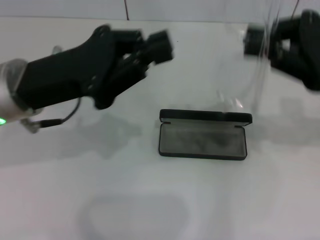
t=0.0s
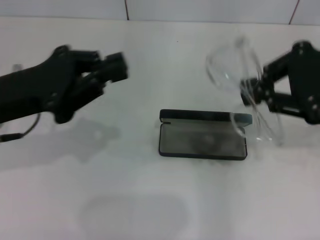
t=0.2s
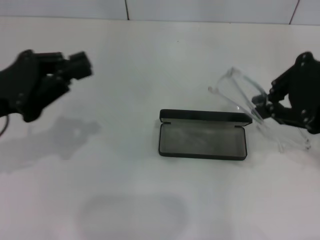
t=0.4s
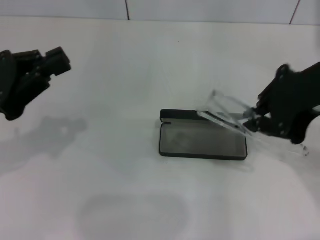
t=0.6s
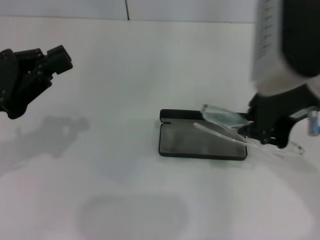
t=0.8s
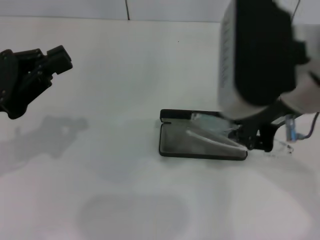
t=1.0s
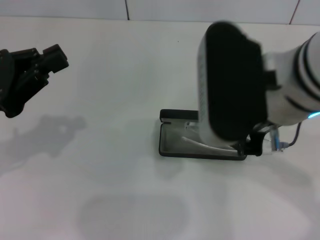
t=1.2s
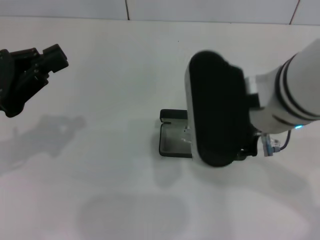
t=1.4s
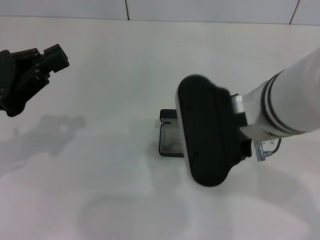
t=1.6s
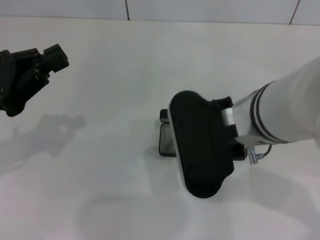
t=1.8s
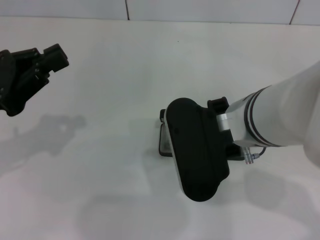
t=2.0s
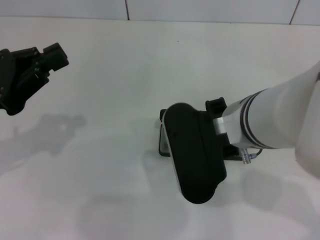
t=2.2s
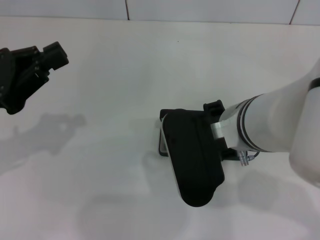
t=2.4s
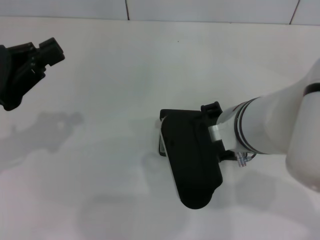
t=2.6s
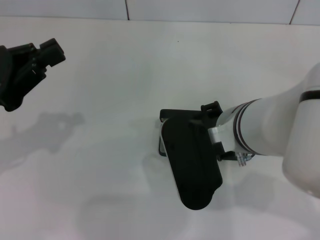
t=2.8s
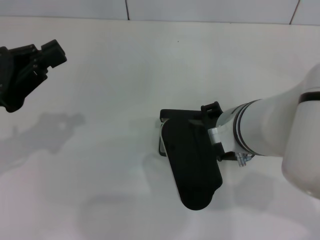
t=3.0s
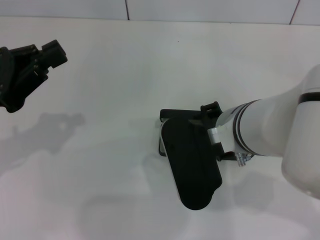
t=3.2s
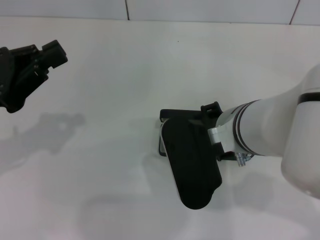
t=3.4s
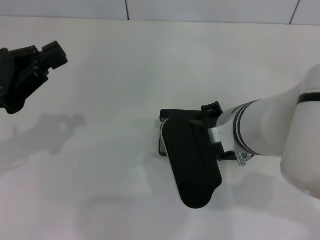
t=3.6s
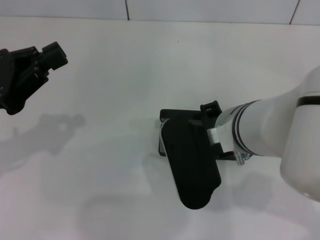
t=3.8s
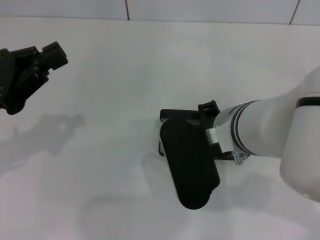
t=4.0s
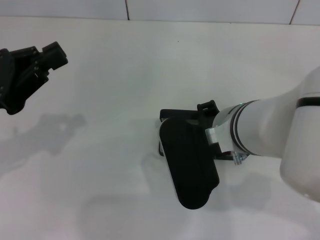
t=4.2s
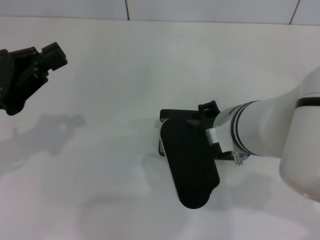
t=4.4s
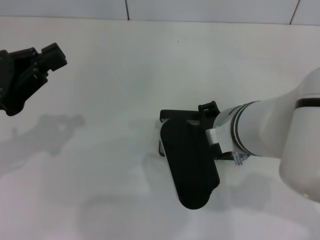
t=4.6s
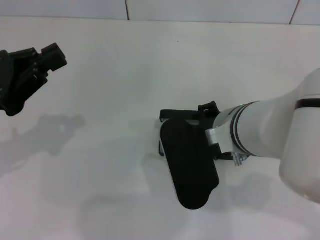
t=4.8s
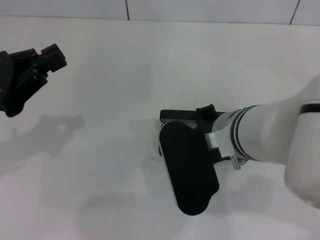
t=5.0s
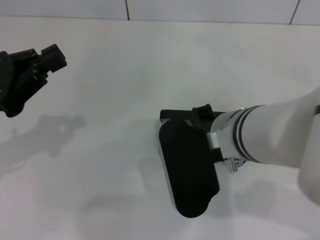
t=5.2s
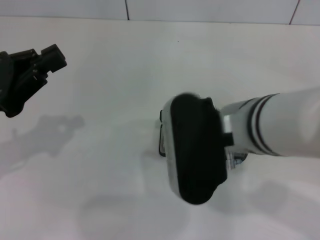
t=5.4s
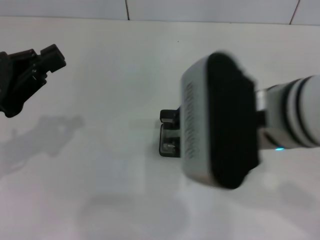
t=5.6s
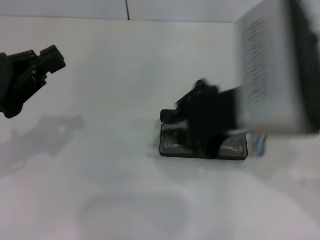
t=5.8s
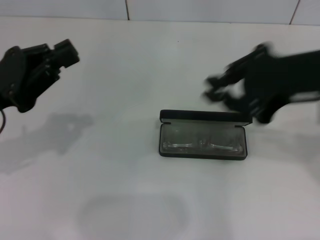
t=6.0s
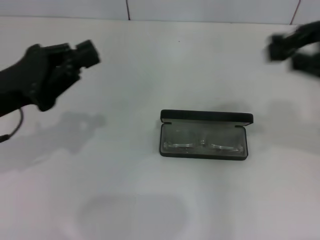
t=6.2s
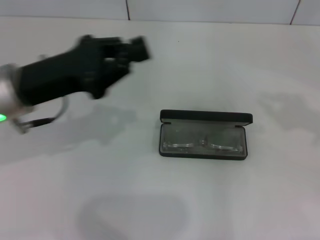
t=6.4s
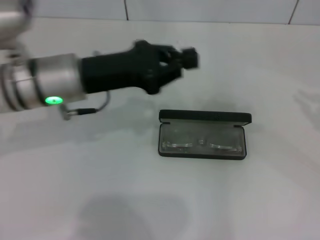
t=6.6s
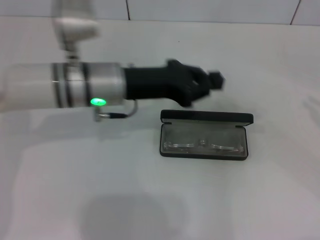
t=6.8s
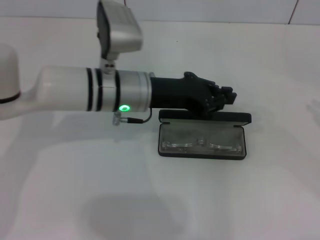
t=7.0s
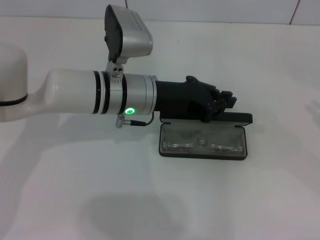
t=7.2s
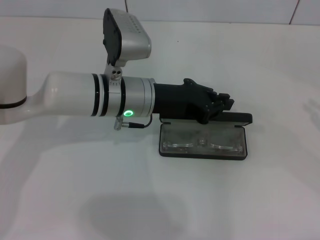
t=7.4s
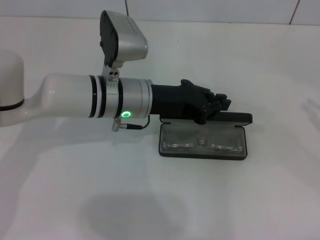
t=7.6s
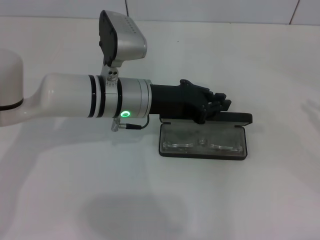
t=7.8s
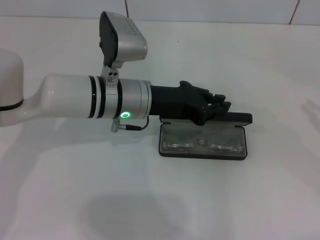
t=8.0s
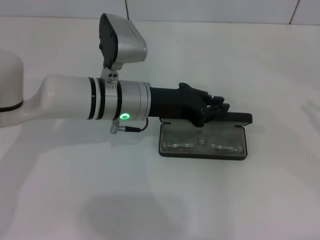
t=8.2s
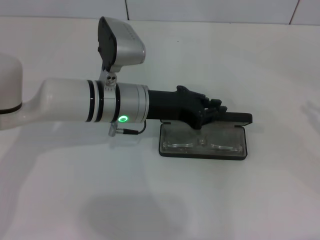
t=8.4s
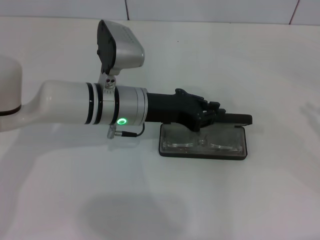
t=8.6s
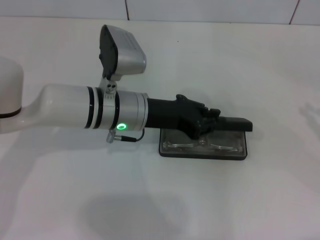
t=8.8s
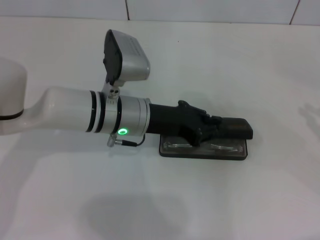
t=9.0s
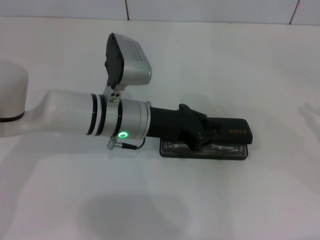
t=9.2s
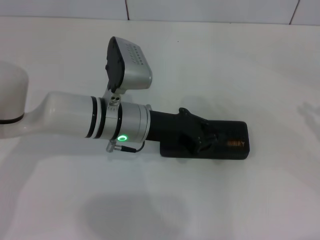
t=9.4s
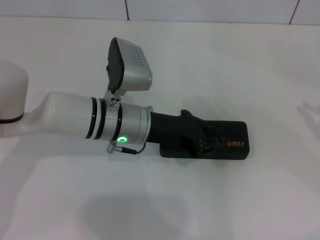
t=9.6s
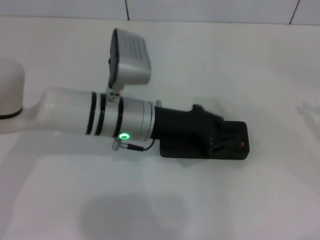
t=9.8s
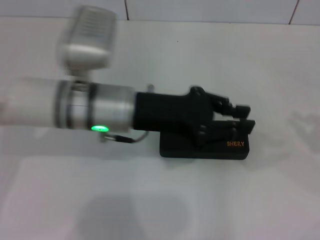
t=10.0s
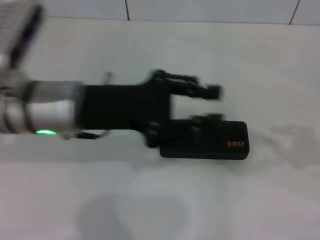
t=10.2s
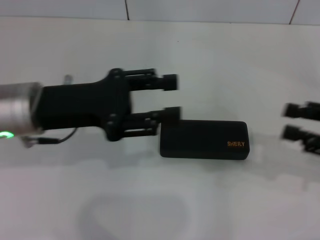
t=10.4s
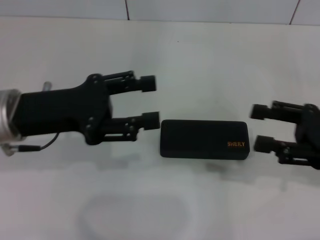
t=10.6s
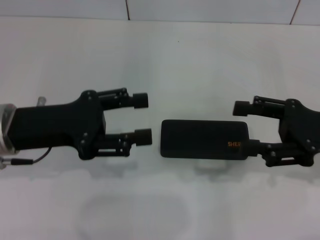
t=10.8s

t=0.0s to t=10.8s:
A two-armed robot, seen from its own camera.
Step, t=0.0s to t=5.0s: Put the glasses into the case with your right hand.
Step, t=5.4s to t=9.2s: Close the glasses case with your left hand.
t=0.0s to t=1.6s: The left gripper travels to the left by roughly 10 cm. Meanwhile the right gripper moves to the left, some 20 cm.
t=1.6s to t=3.0s: The right gripper ends up roughly 5 cm from where it was.
t=3.0s to t=4.6s: The two grippers keep their place.
t=4.6s to t=6.2s: The right gripper heads to the right and upward, covering about 25 cm.
t=6.2s to t=7.8s: The left gripper moves to the right and forward, some 20 cm, while the right gripper goes approximately 15 cm to the right and downward.
t=7.8s to t=9.2s: The grippers stay close to where they were, moving slightly.
t=9.2s to t=10.8s: The right gripper moves to the left, roughly 15 cm, and opens up. The left gripper goes about 15 cm to the left, backward and upward, and opens.

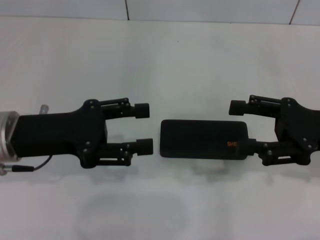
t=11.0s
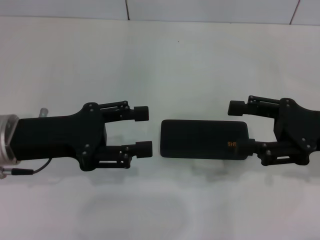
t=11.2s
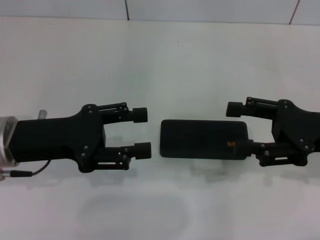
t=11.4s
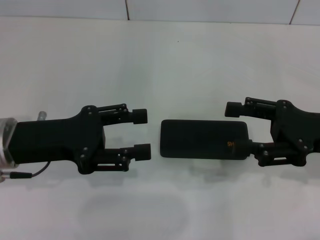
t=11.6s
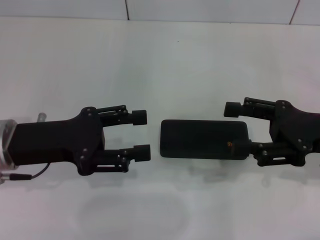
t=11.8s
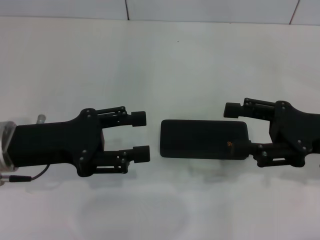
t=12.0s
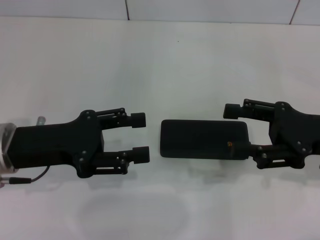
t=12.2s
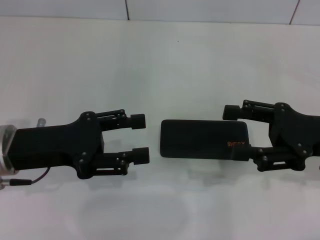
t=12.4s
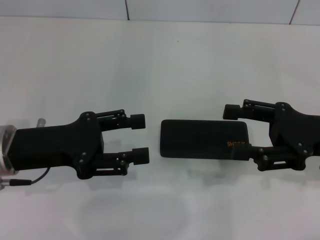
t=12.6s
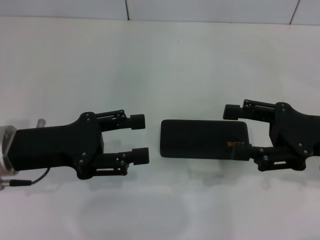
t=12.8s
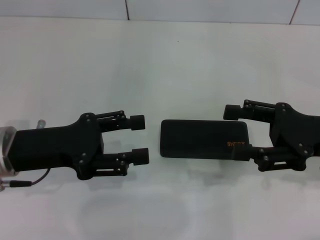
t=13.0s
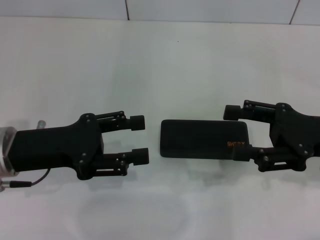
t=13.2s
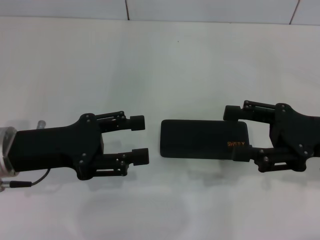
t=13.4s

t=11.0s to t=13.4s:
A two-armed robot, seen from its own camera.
t=11.0s to t=12.2s: The grippers stay close to where they were, moving slightly.
t=12.2s to t=13.4s: Neither gripper changes place.

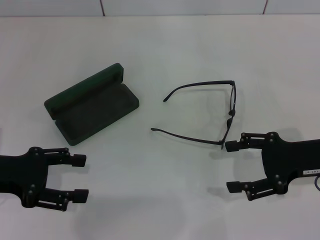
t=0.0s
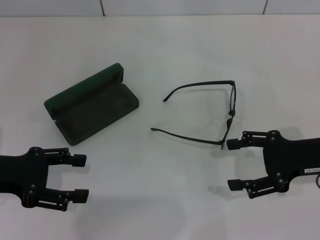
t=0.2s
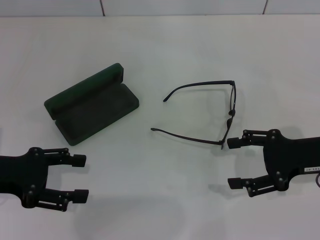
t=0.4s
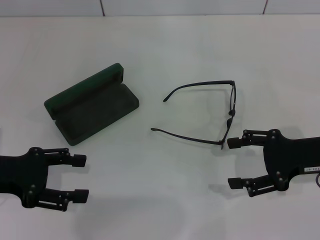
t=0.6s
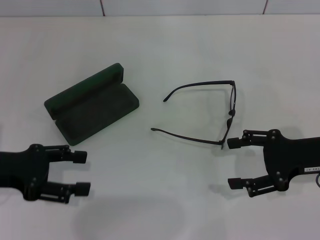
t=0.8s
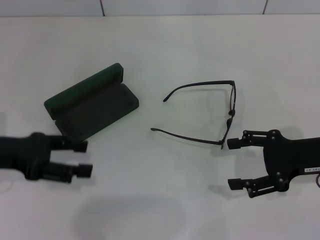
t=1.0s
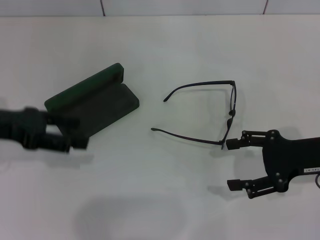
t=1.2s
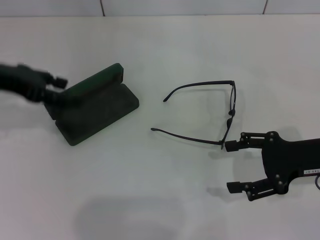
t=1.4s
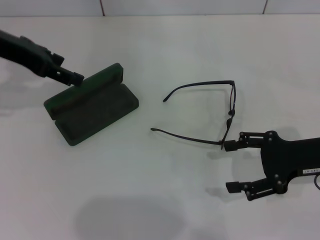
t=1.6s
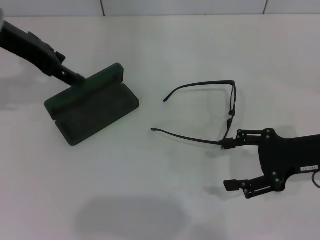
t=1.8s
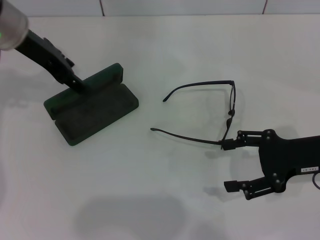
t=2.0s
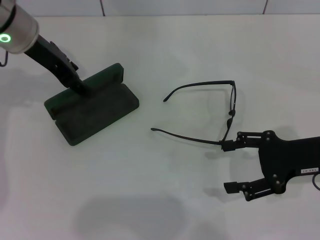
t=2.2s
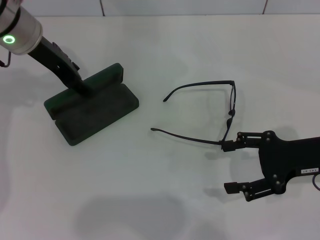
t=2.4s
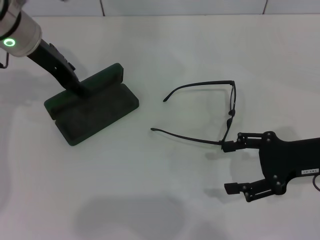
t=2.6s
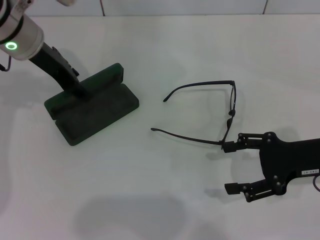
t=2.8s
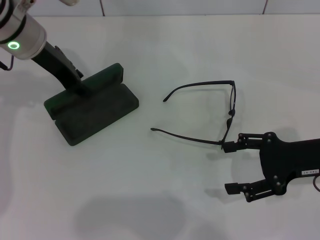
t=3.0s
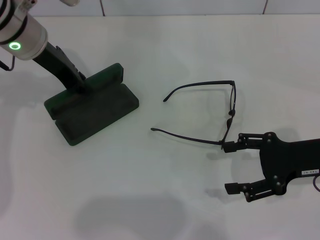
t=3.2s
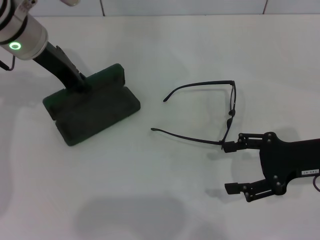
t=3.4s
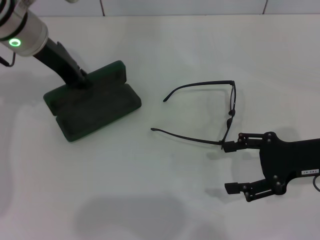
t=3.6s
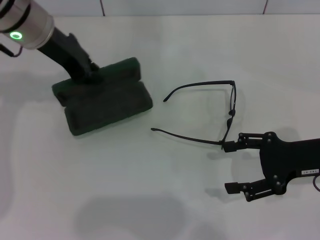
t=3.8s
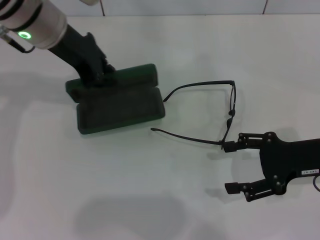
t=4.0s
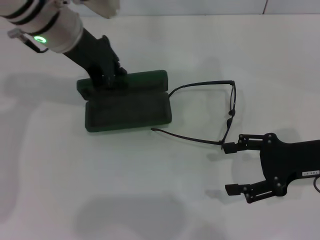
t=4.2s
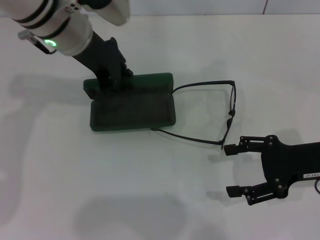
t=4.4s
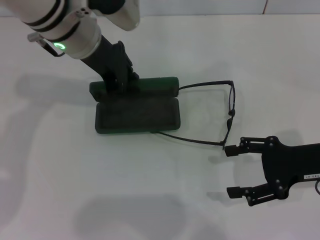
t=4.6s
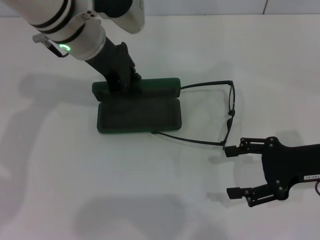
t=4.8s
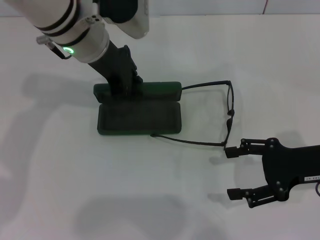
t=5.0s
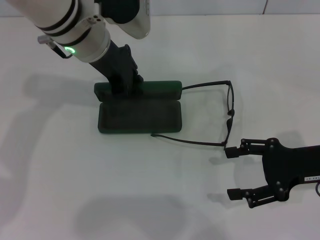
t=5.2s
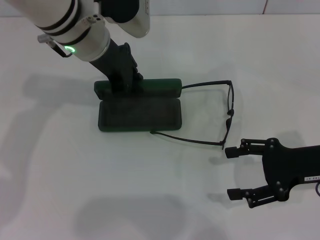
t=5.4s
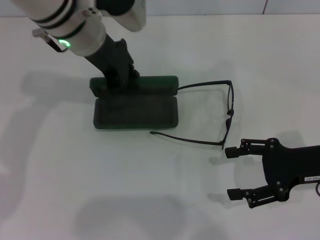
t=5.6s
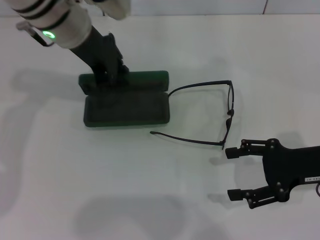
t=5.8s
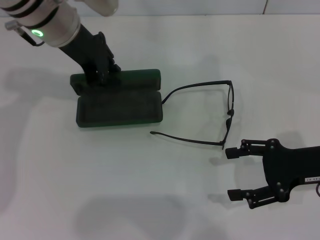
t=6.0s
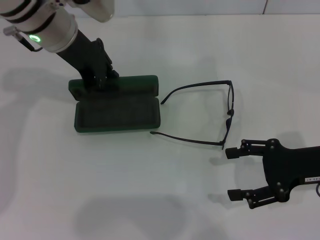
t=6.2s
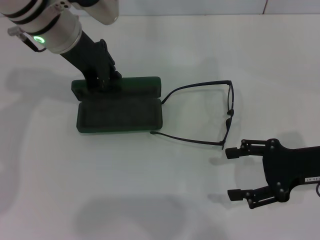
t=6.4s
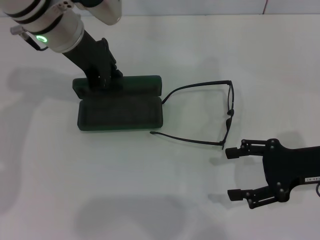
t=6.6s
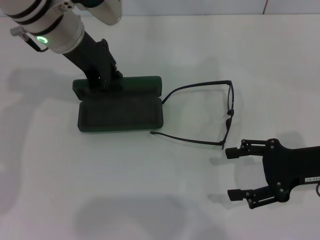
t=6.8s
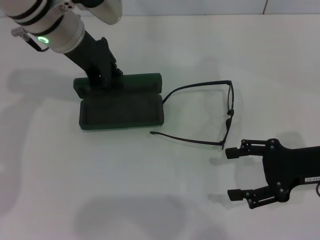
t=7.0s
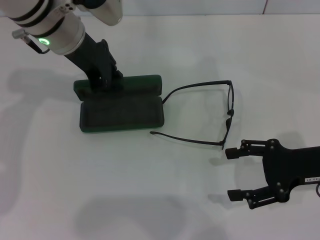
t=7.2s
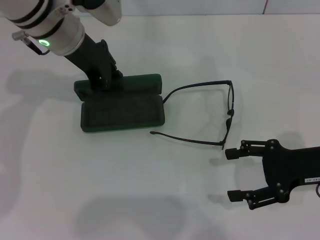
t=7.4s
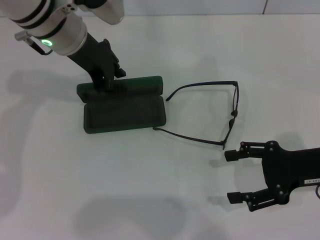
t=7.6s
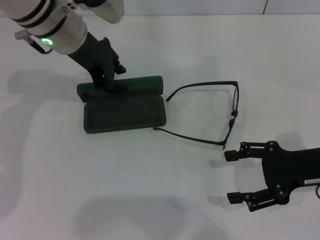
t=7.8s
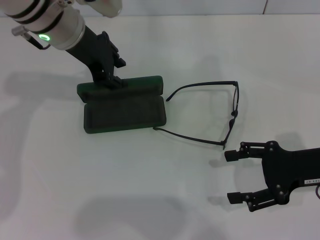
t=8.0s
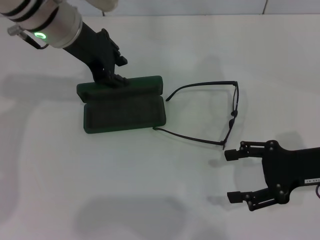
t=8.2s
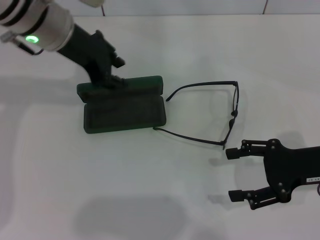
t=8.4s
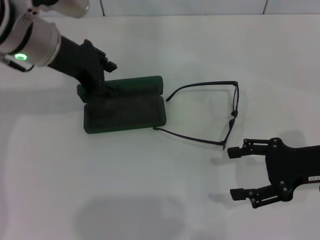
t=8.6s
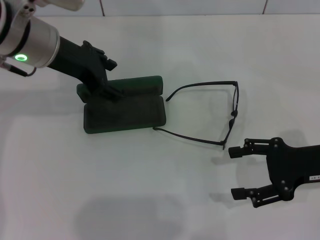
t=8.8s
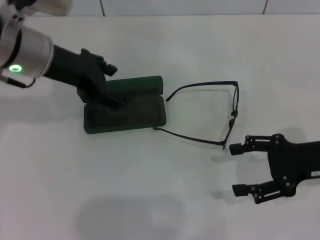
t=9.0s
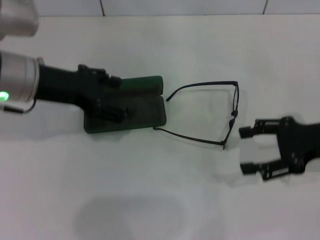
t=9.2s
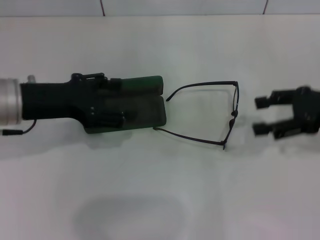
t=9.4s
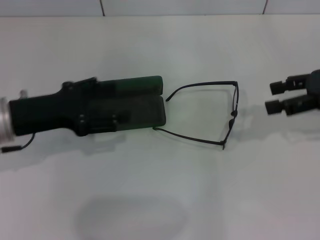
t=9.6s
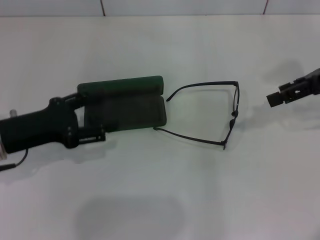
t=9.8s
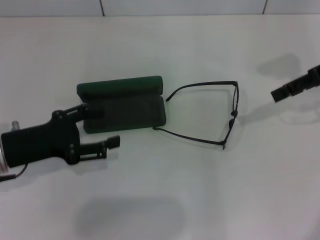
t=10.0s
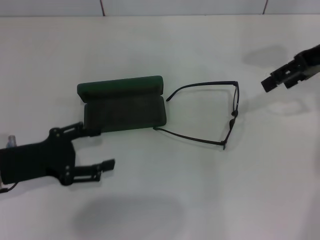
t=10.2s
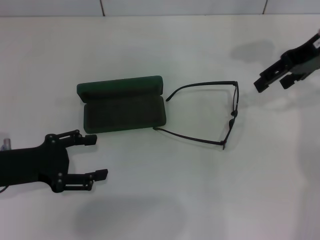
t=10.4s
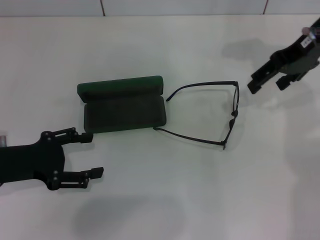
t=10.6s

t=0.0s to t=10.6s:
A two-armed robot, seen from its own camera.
Step, t=0.0s to t=3.2s: Grab the glasses case with your left hand.
Step, t=3.4s to t=7.6s: Place the glasses case in the center of the table with your left hand.
t=0.0s to t=1.6s: The left gripper goes some 20 cm forward and upward.
t=1.6s to t=3.0s: The left gripper goes some 5 cm to the right.
t=3.0s to t=4.6s: The left gripper goes approximately 5 cm to the right, and closes.
t=4.6s to t=7.6s: The grippers move only a little.
t=7.6s to t=9.0s: The left gripper heads backward, covering some 5 cm, and opens its fingers.
t=9.0s to t=10.6s: The left gripper moves downward, backward and to the left, approximately 20 cm. The right gripper shifts approximately 20 cm forward, upward and to the left.
